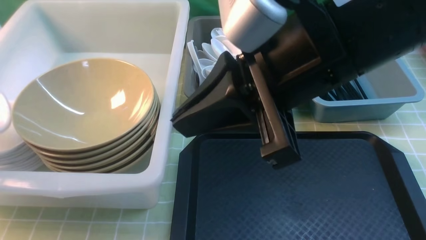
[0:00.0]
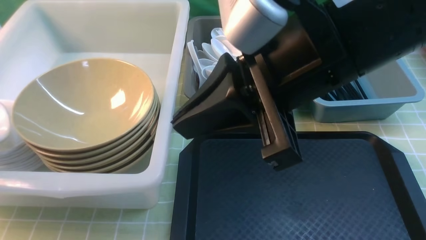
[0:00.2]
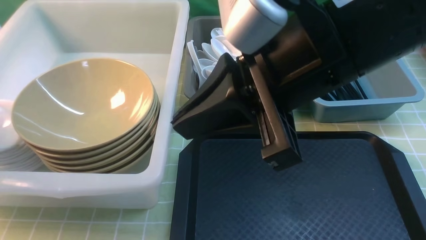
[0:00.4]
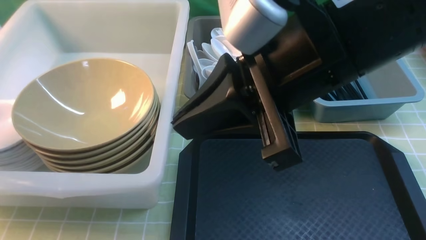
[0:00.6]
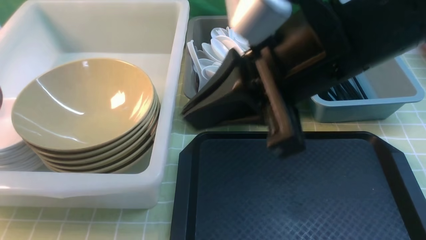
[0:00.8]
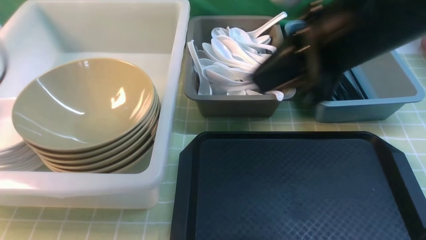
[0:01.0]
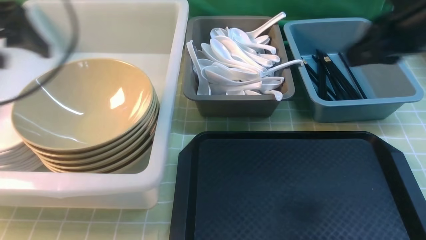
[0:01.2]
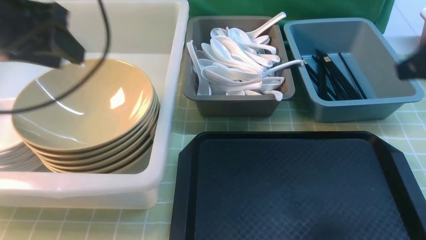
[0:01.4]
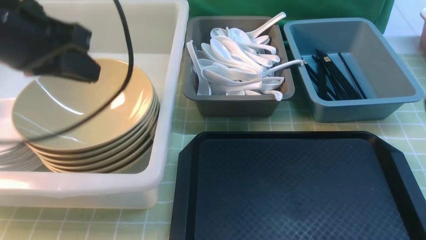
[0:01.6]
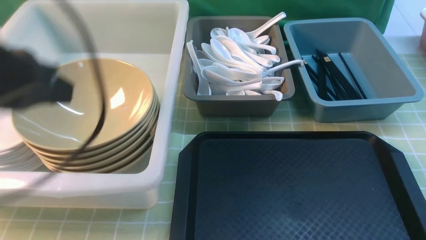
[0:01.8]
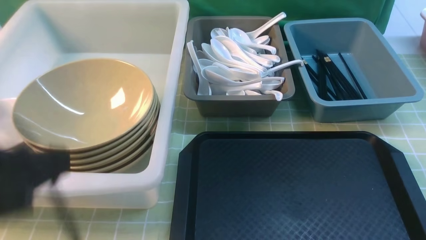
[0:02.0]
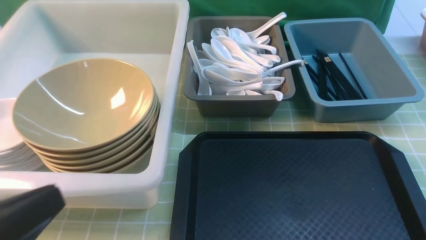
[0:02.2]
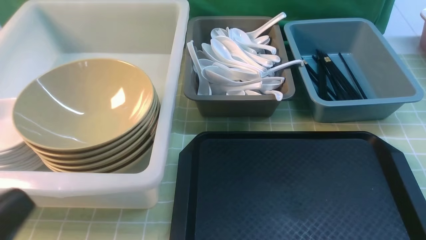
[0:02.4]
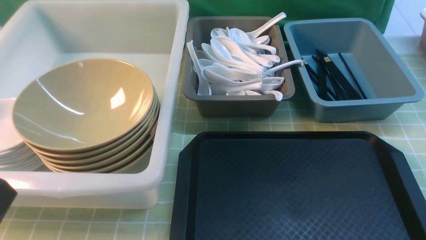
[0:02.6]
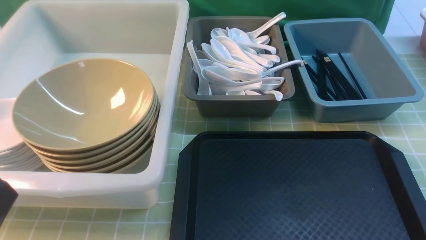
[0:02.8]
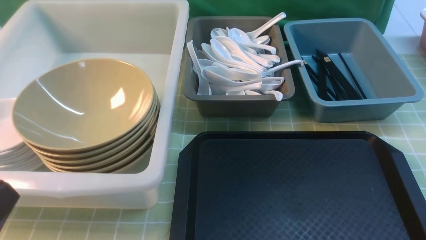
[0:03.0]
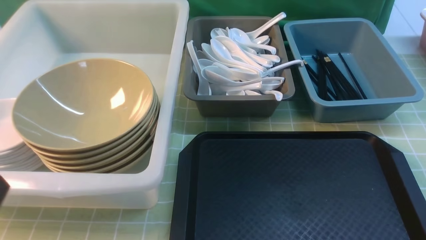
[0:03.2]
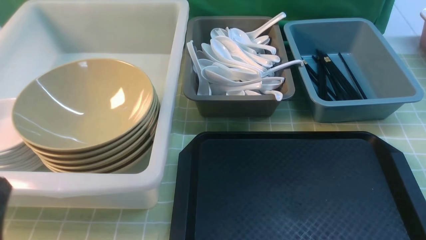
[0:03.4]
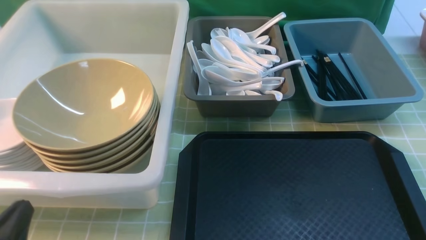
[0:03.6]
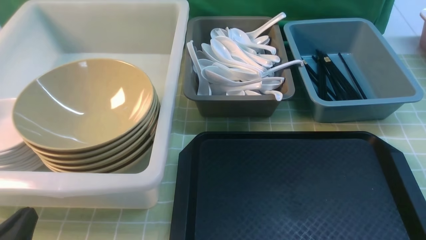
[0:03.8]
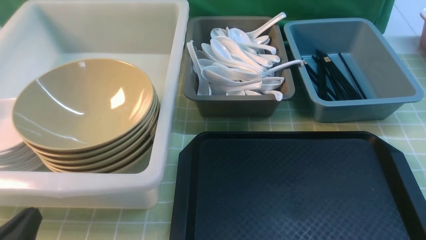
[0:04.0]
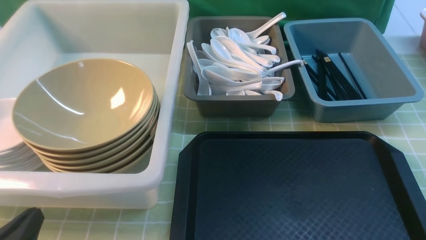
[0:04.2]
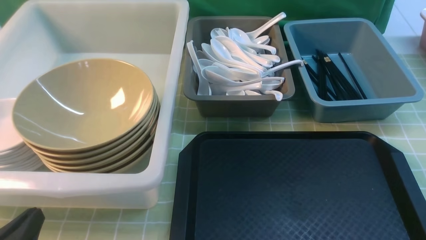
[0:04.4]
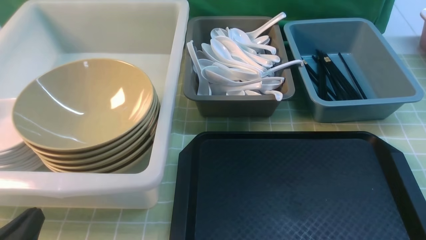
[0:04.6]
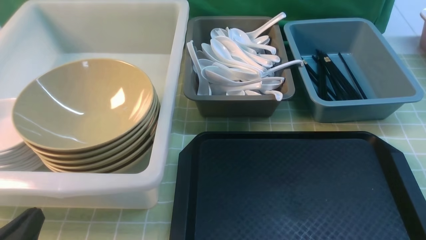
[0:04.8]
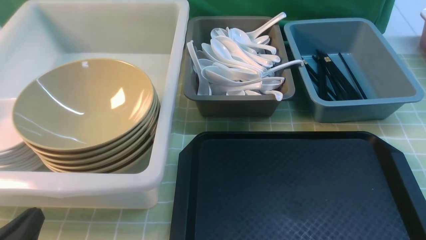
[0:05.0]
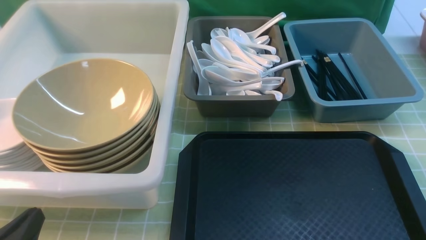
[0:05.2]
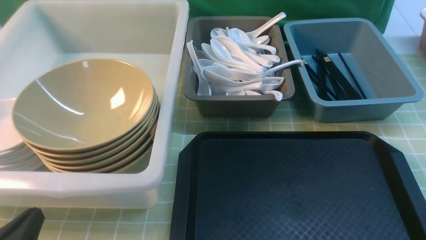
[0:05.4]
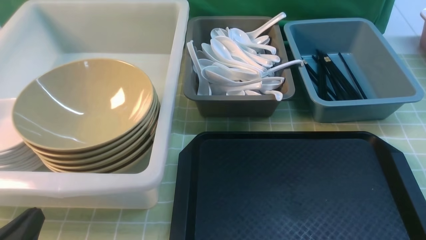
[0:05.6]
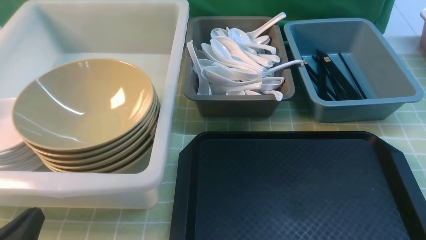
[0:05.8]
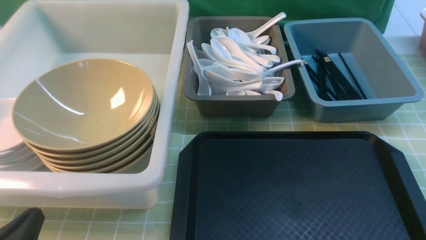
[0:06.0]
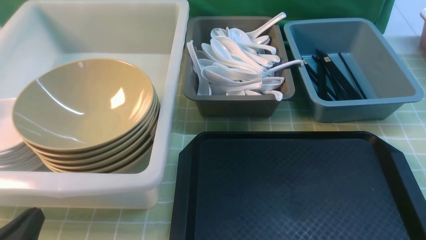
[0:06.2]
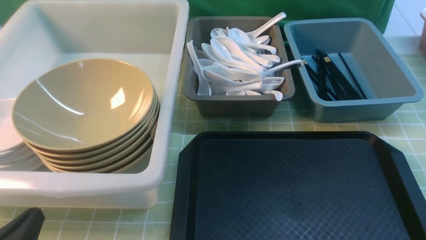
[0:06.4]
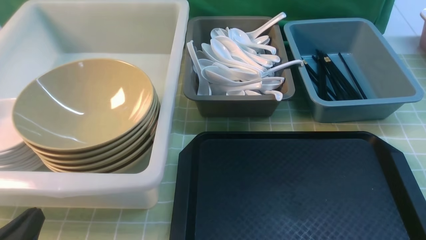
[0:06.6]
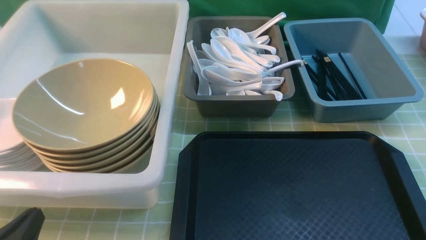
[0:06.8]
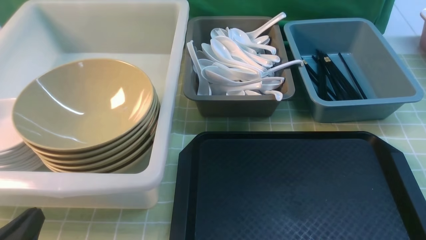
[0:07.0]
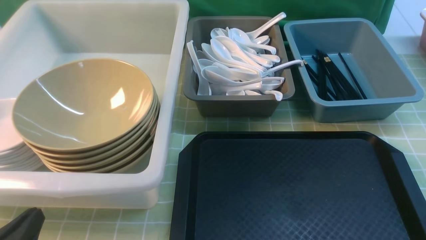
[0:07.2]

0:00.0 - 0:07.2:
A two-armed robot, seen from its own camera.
Task of the whole recording: on green table put chopsticks spoon bowls plates into blue grey white boxes.
0:00.0 - 0:01.4: The left gripper heads to the right and upward, covering about 20 cm, and opens up. Meanwhile the right gripper goes about 20 cm to the right.
0:01.4 - 0:02.8: The right gripper travels backward and downward by some 25 cm. Meanwhile the left gripper moves backward, some 25 cm, and closes up.
0:02.8 - 0:04.4: The left gripper is displaced downward by about 10 cm.
0:05.8 - 0:07.2: The two grippers keep their place.

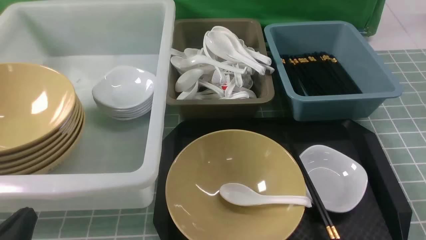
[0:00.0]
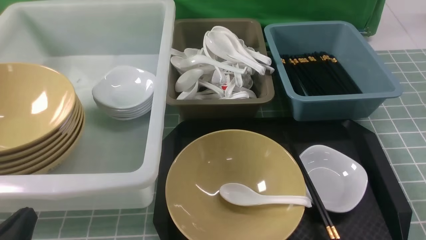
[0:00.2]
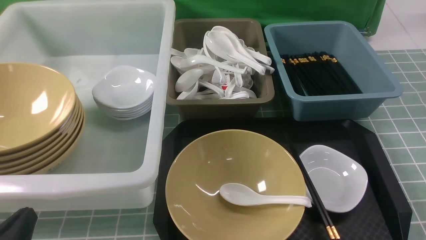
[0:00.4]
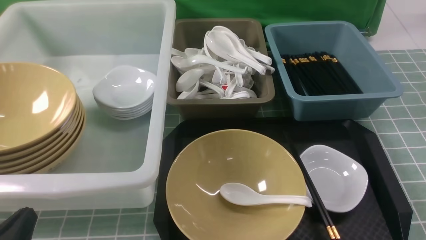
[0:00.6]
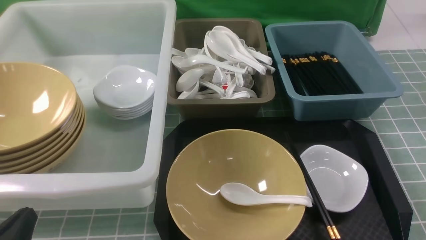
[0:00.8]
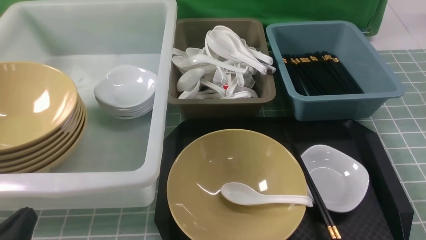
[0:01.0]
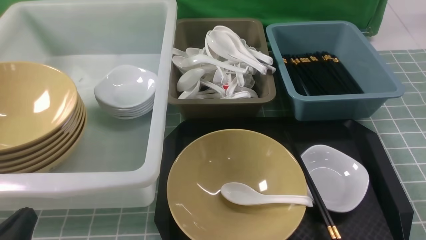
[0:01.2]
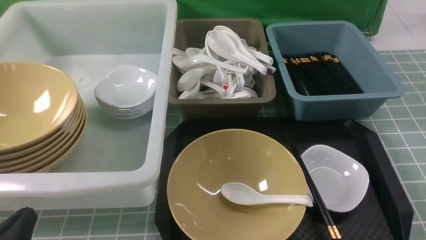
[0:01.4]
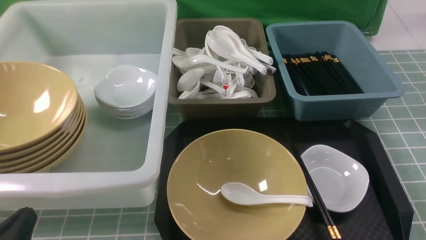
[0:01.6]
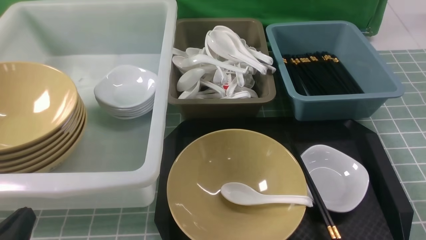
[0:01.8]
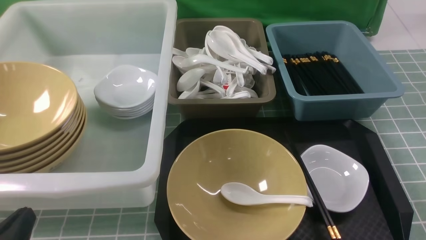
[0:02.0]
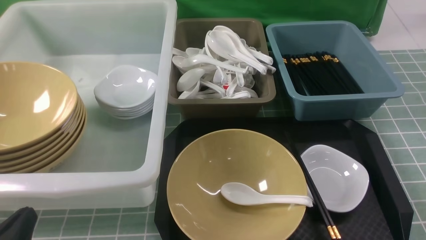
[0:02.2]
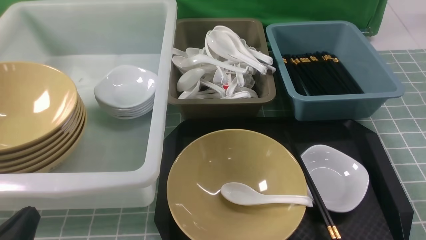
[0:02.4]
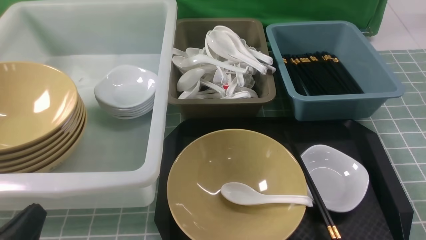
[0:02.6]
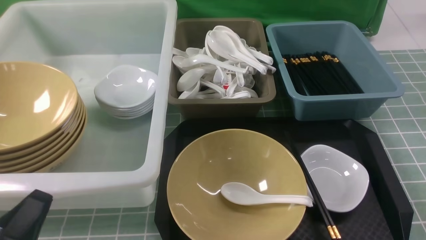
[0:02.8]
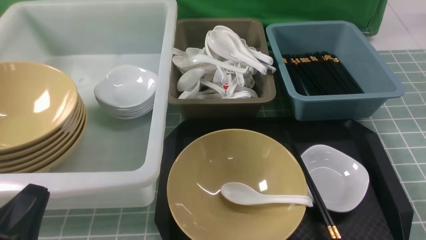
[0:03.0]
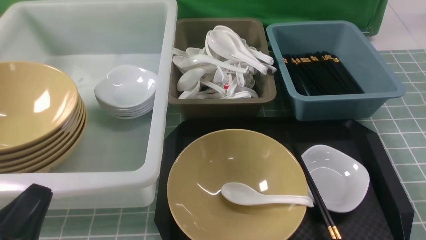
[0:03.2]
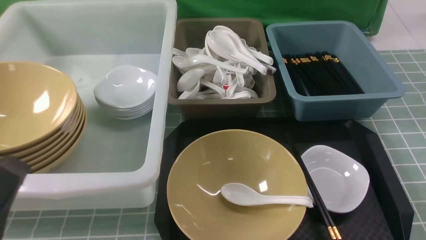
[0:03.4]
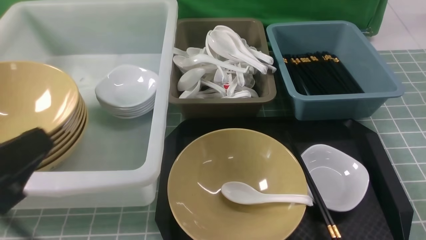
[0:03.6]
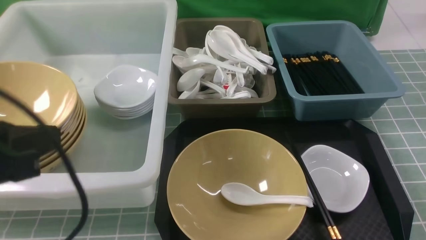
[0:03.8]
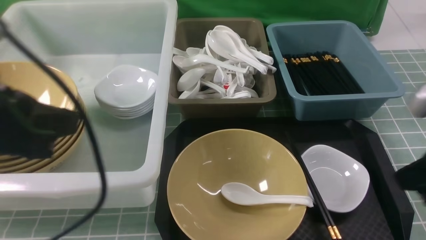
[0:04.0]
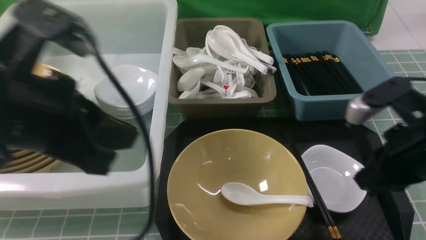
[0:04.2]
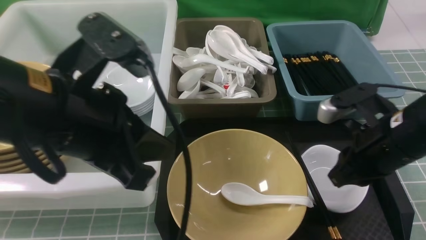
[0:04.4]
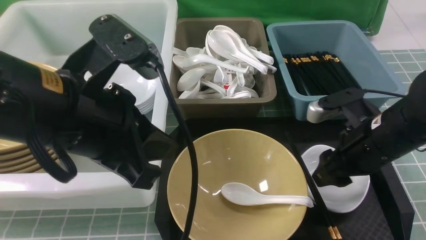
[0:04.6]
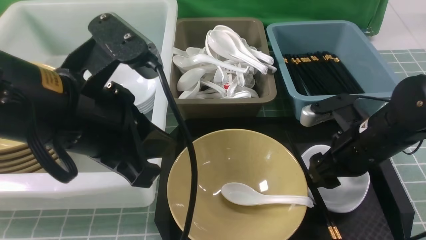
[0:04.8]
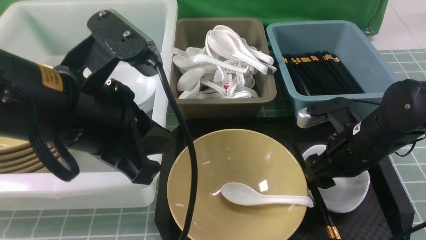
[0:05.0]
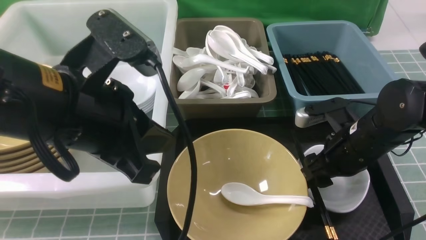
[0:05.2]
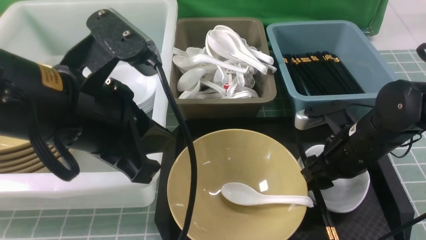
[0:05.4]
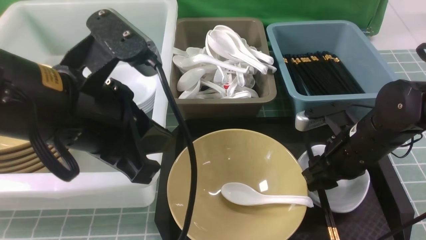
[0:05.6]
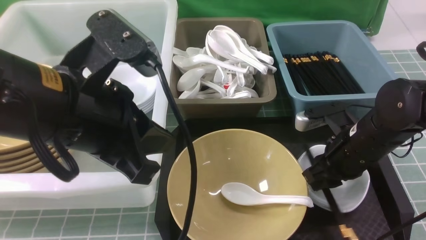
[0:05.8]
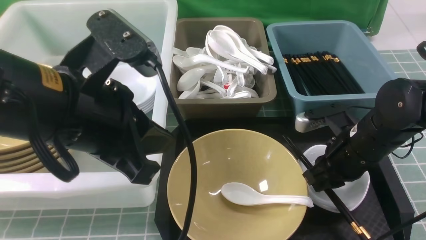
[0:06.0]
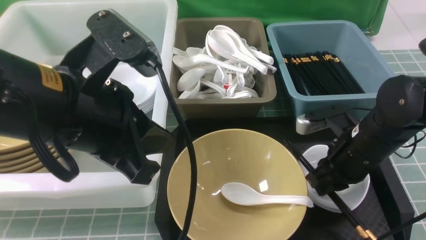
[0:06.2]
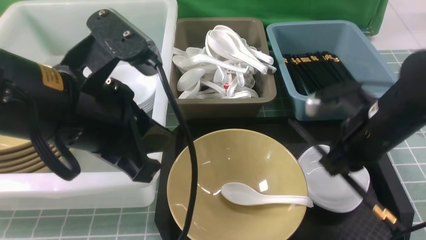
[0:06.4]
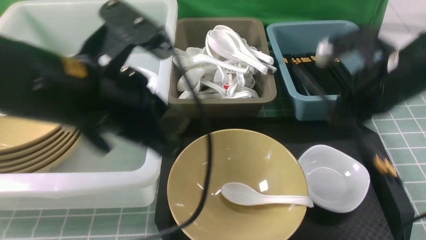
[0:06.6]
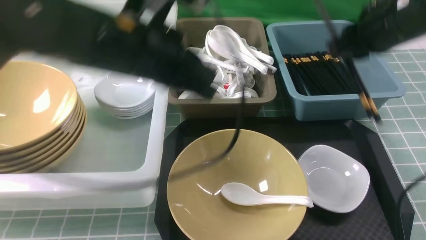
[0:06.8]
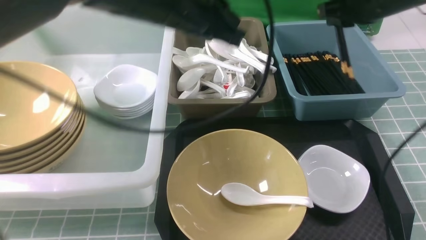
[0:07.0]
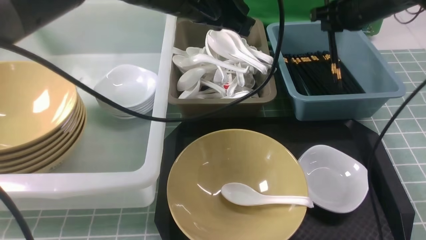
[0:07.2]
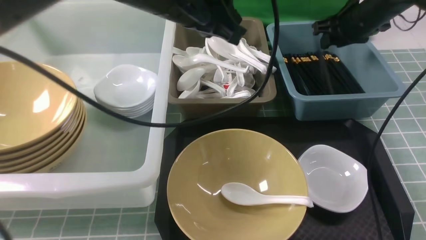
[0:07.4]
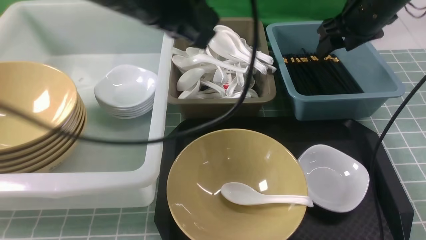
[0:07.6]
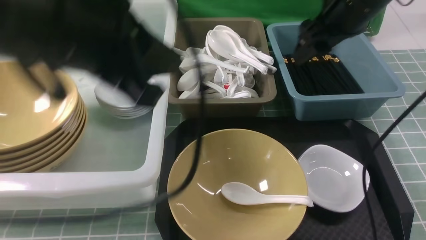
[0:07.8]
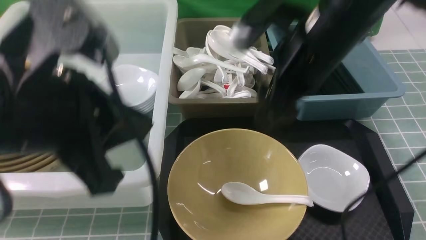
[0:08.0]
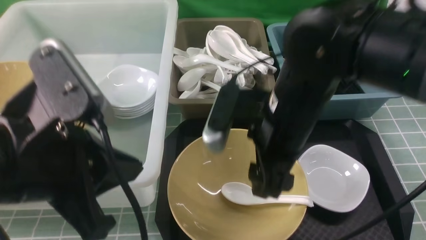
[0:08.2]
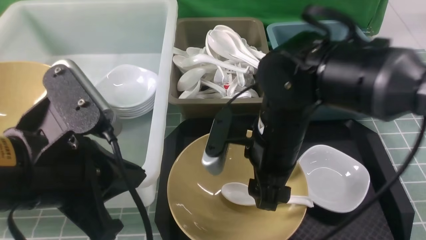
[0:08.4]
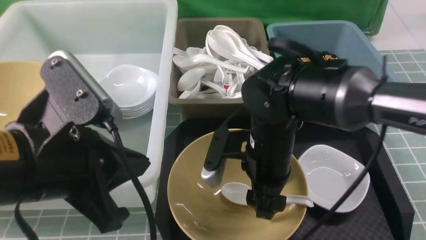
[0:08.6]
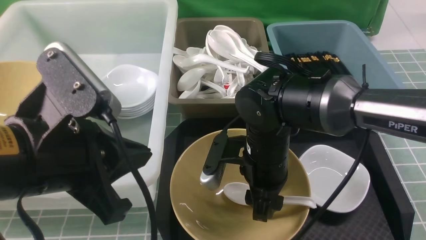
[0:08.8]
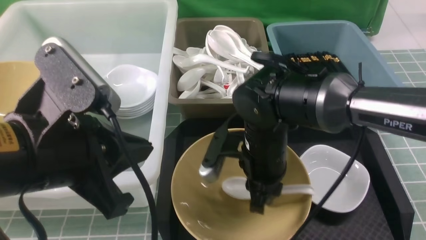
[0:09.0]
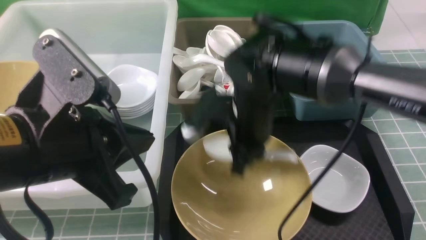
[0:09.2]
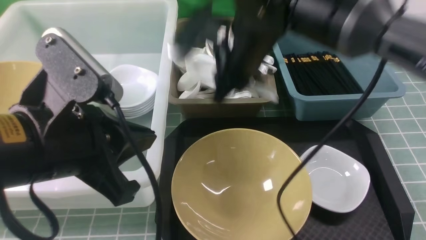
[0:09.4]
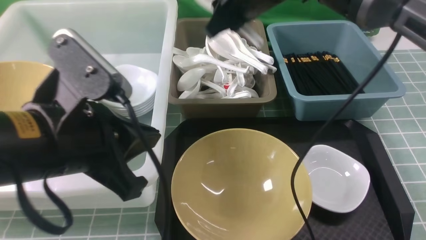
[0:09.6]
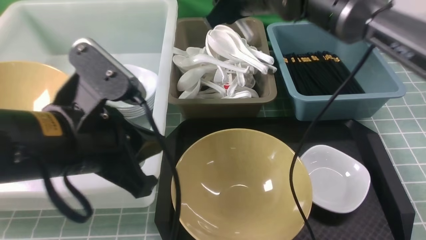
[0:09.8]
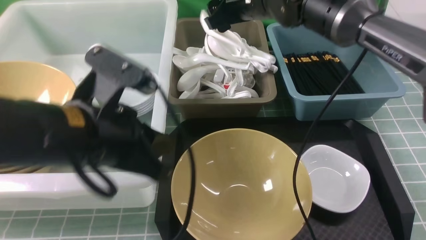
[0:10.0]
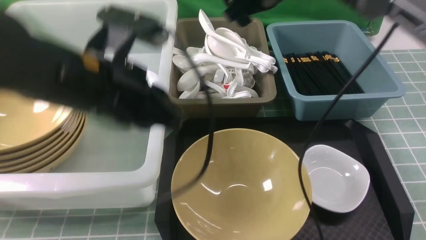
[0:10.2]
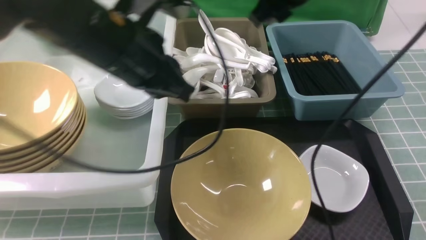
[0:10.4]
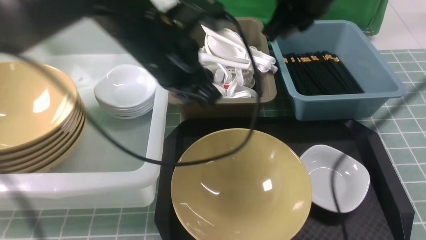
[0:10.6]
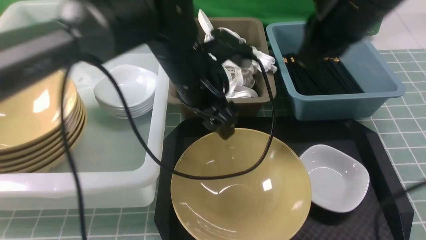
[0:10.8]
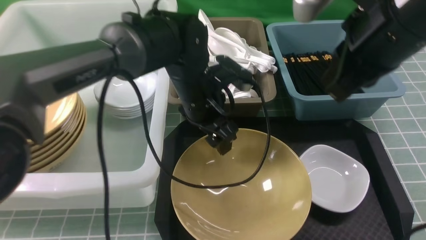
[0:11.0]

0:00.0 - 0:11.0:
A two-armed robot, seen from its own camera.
Task of the whole recording: on blue table put chopsticks spoon bowls plates into blue grey white boxes.
Step, 0:00.0 - 0:06.4: use the right arm to grab the chopsticks.
Step, 0:06.6 - 0:07.8: use the right arm to put the chopsticks into the small storage box on the right.
Step, 0:08.0 - 0:09.2: use the right arm to grab the soup spoon in the middle.
Step, 0:09.4 - 0:10.2: use the right arm to put the soup spoon into the small storage box in the middle.
0:00.0 - 0:01.6: Neither gripper changes place.
0:01.6 - 0:03.2: The left gripper moves upward, roughly 5 cm.
0:03.2 - 0:04.8: The right gripper heads forward and to the left, covering about 25 cm, and opens its fingers. Meanwhile the left gripper goes roughly 20 cm upward, forward and to the right.
0:04.8 - 0:06.2: The right gripper closes.
0:06.2 - 0:07.8: The right gripper is displaced upward and forward by about 15 cm, and opens up. The left gripper moves upward, some 5 cm, and goes forward and returns, about 15 cm each way.
0:07.8 - 0:09.4: The left gripper travels downward by roughly 10 cm. Meanwhile the right gripper is displaced to the left by about 10 cm, travels downward and back again, roughly 15 cm each way, and closes its fingers.
0:09.4 - 0:11.0: The right gripper moves to the right, backward and upward, some 20 cm, and closes. The left gripper shifts about 25 cm forward, to the right and downward, and opens its fingers.
